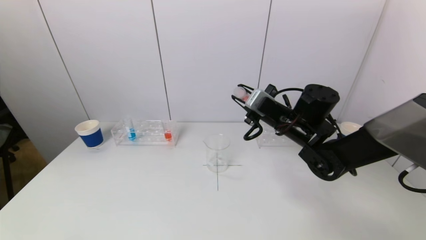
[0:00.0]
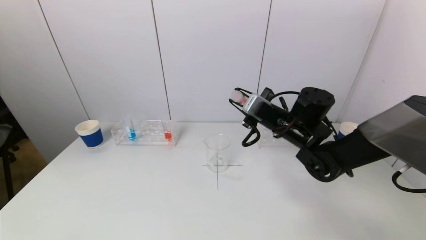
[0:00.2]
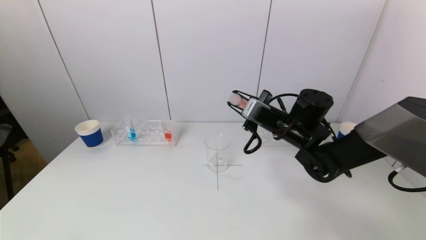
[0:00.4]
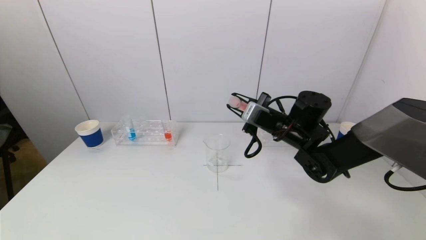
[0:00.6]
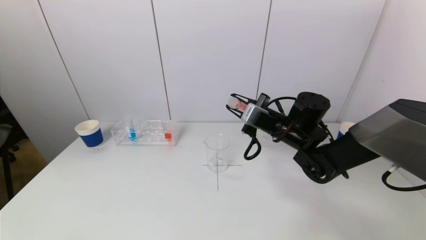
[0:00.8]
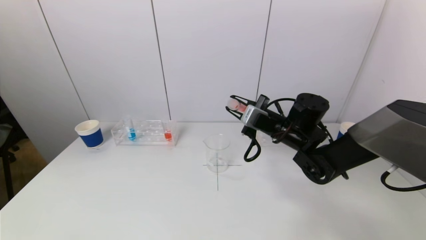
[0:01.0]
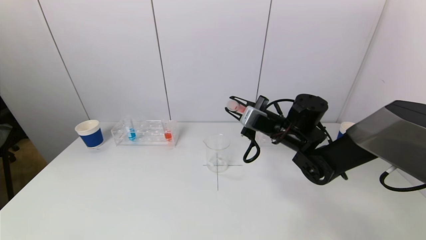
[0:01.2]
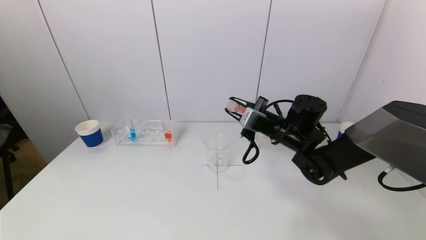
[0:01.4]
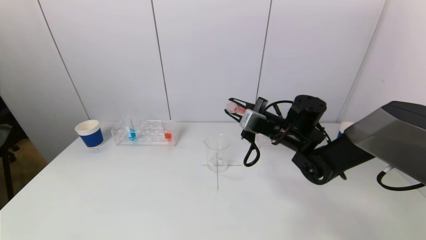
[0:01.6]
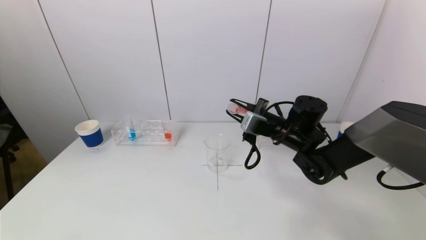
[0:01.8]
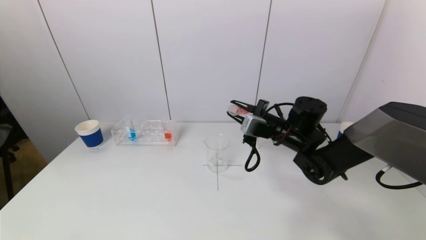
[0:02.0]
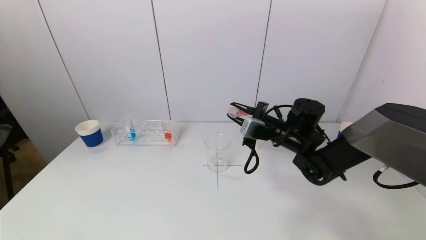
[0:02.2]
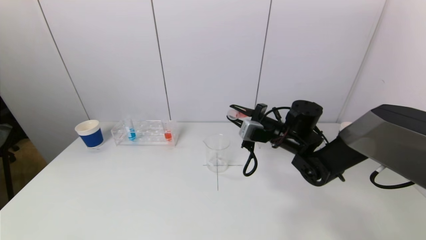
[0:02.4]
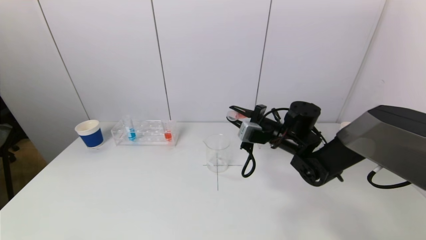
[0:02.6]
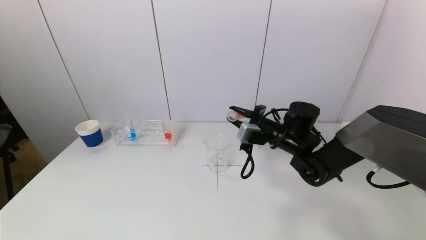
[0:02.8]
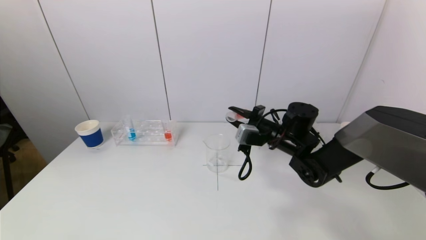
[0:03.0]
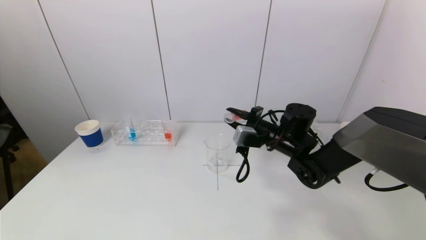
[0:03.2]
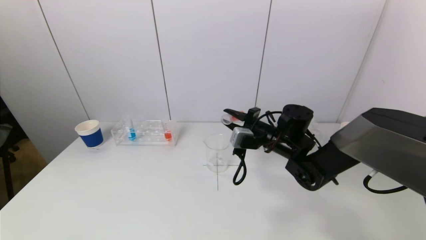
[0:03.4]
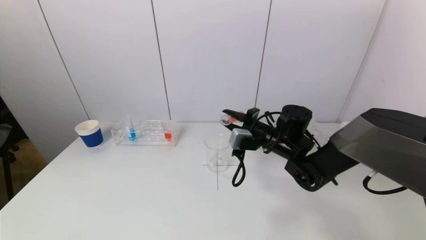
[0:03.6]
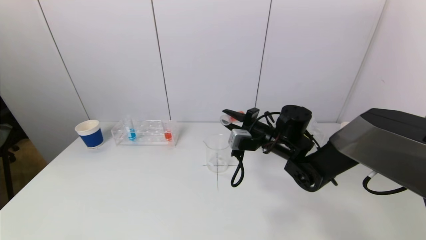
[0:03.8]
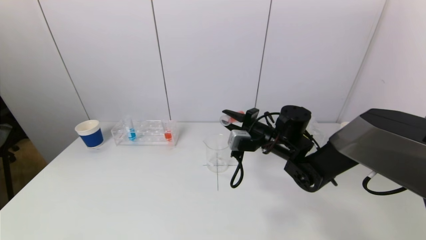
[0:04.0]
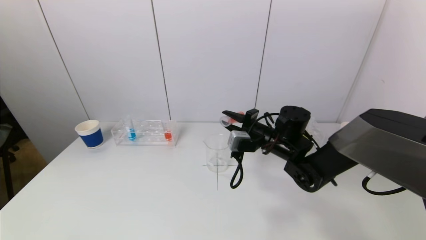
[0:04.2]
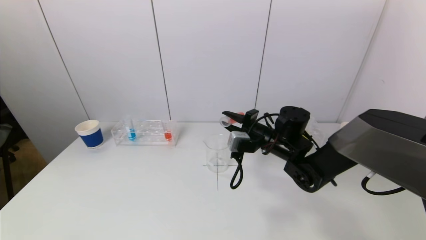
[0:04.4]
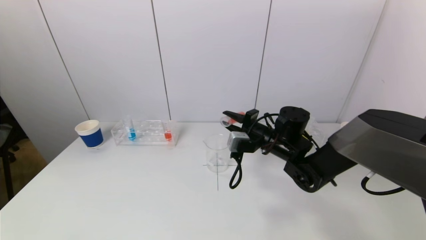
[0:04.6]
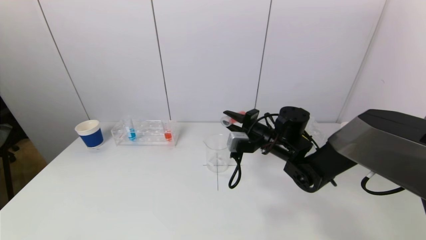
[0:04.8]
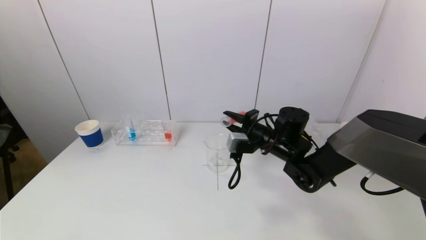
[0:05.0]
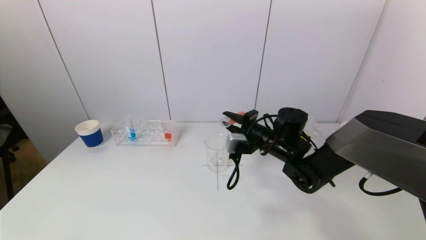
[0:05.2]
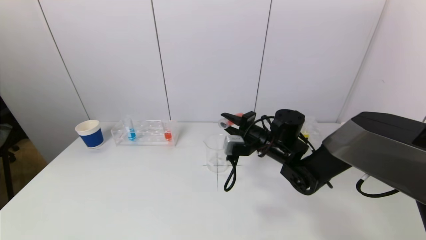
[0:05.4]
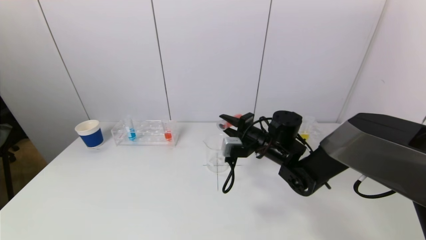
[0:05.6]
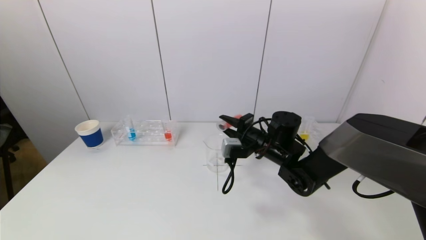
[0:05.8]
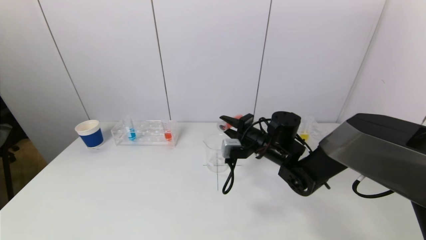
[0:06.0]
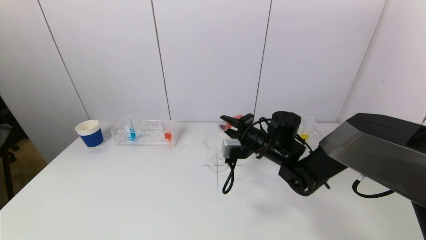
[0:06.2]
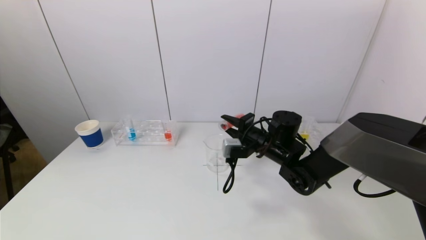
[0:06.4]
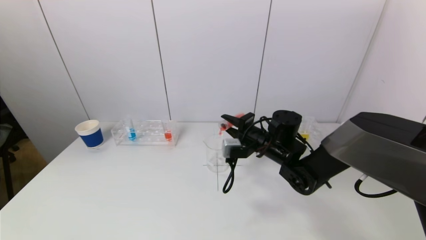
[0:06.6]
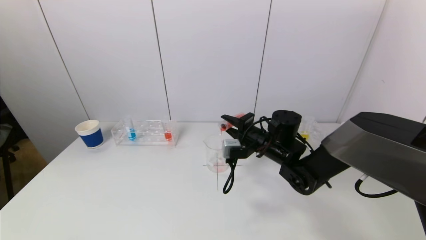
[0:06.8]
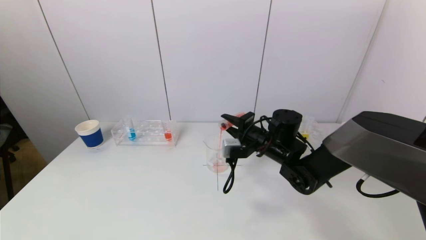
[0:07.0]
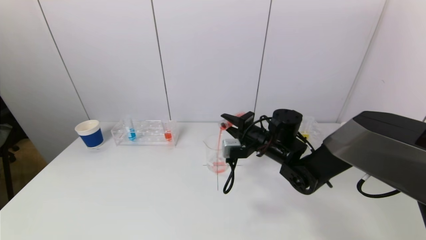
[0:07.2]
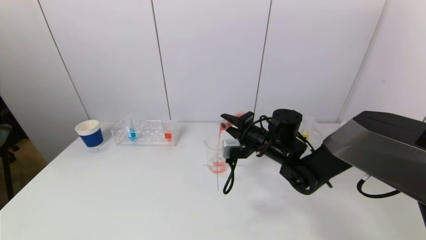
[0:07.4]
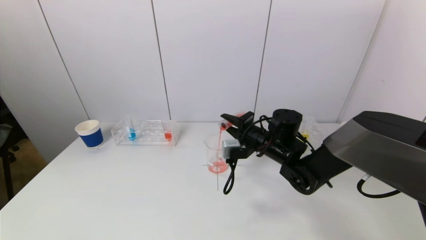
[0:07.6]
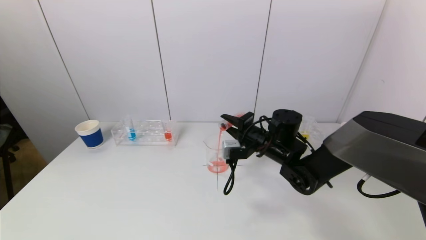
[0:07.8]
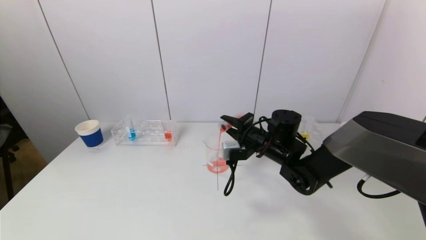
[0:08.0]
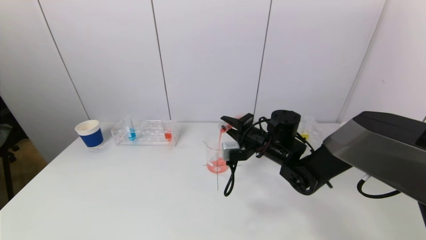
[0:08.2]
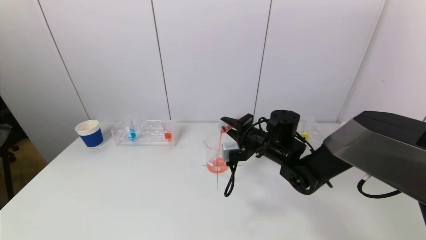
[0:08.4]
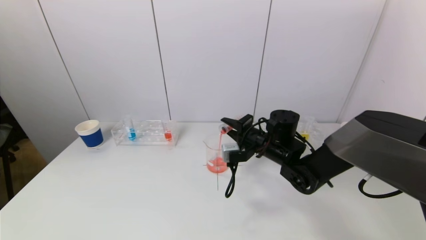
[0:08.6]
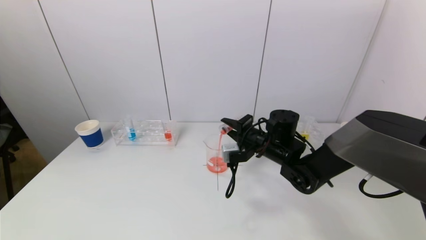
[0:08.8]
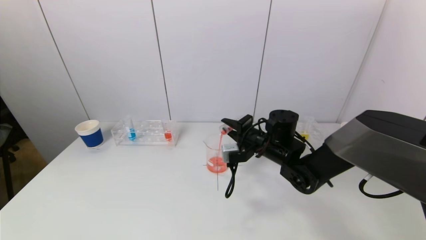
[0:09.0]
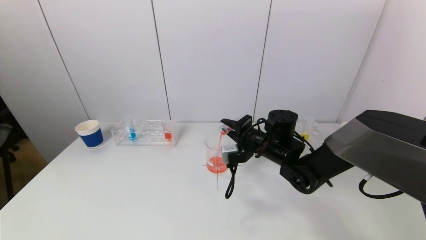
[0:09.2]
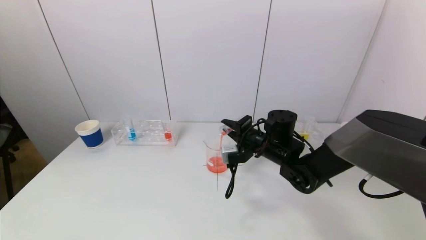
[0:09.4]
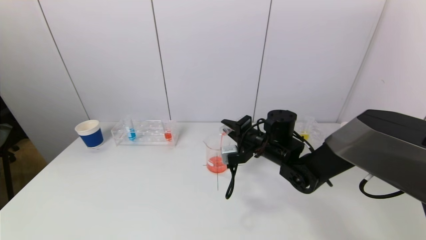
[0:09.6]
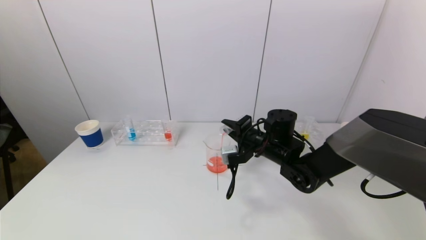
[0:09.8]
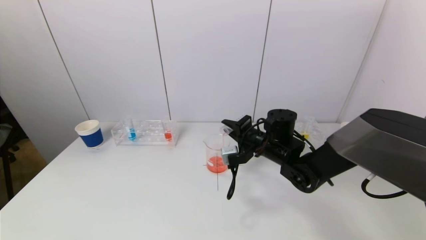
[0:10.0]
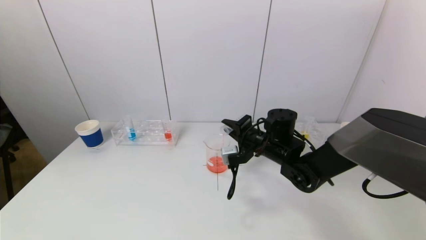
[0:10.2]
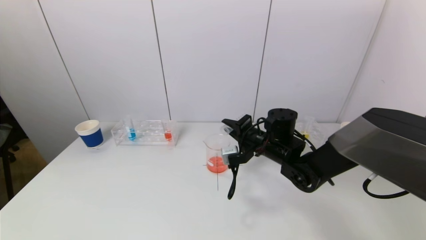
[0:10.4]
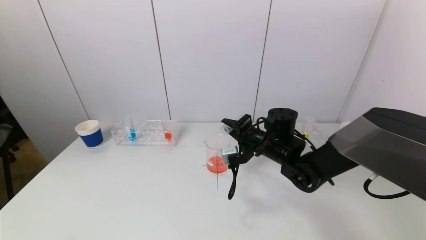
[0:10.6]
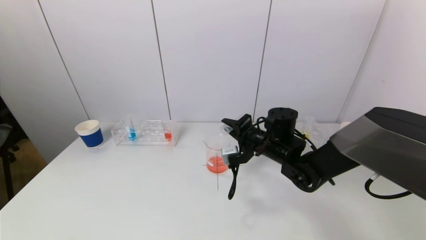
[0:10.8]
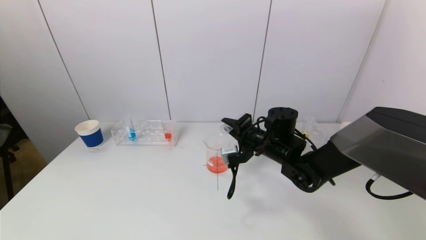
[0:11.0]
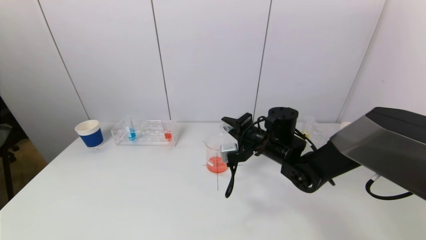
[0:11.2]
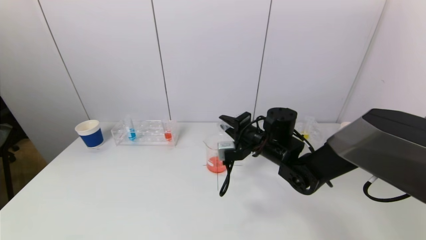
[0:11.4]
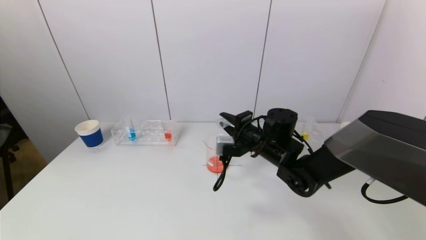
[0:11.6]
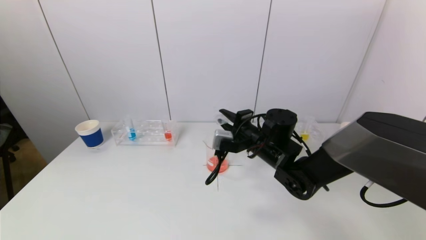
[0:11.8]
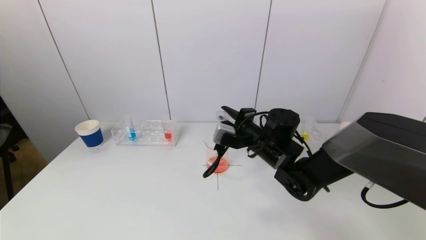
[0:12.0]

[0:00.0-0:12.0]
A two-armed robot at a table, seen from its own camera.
Task of the whole recording: pick up a test tube with pigment on left test tube rack and a test tube with pigment on right test tube rack by grippers and pour them into the beaker.
Step, 0:00.0 to 0:10.6: Pour the red reagent into the graduated cylinder with the right gripper.
0:00.0 to 0:01.6: There are only small adjustments of the grippers.
0:01.6 to 0:04.4: The grippers move only a little.
0:04.4 to 0:09.0: The grippers stay close to where they were, moving slightly.
0:09.0 to 0:10.4: The grippers move only a little.

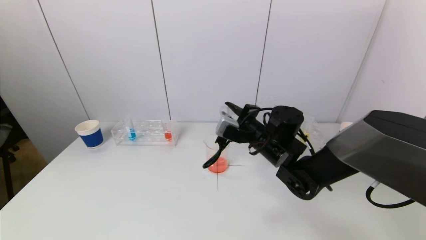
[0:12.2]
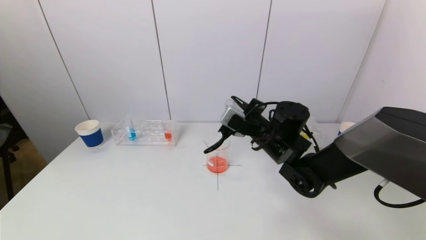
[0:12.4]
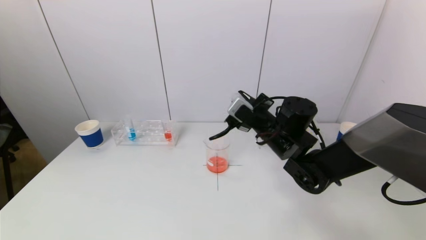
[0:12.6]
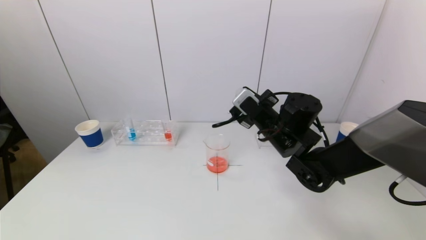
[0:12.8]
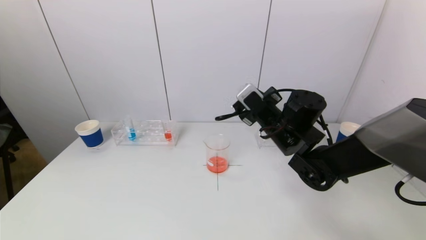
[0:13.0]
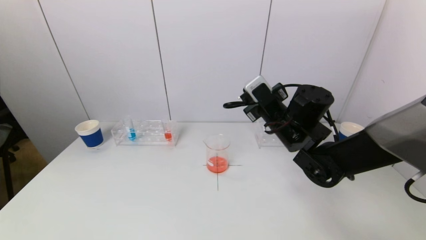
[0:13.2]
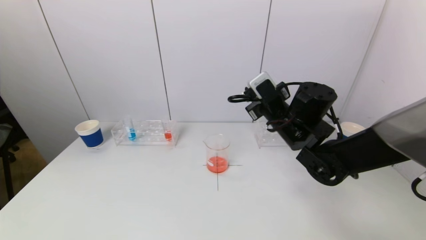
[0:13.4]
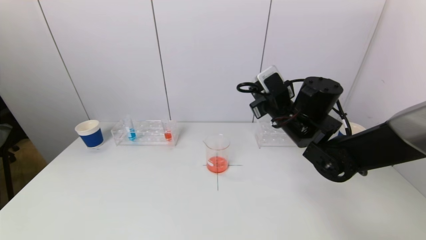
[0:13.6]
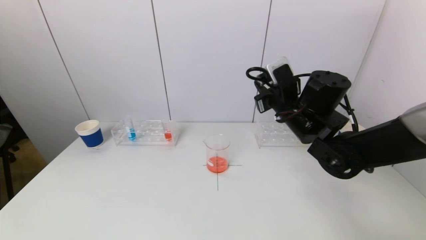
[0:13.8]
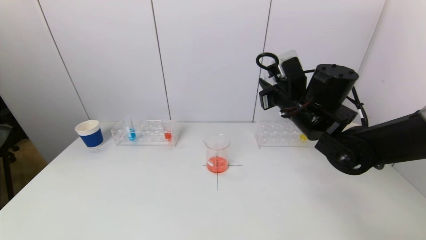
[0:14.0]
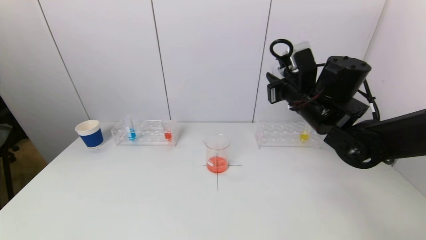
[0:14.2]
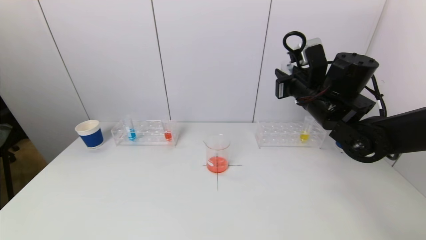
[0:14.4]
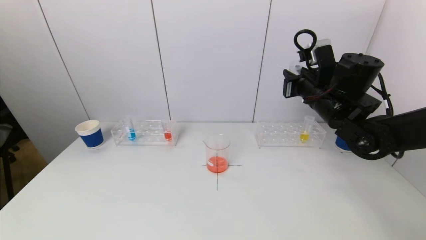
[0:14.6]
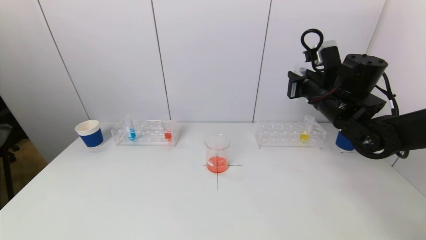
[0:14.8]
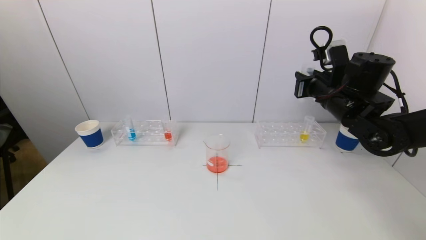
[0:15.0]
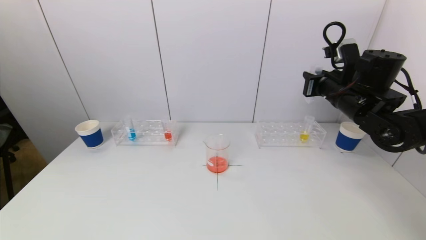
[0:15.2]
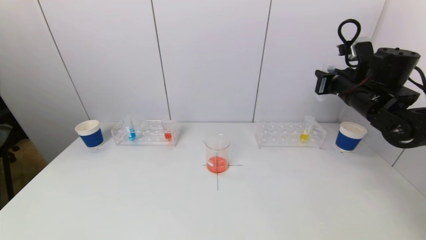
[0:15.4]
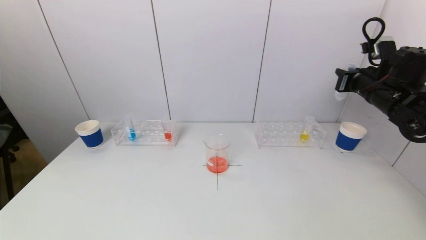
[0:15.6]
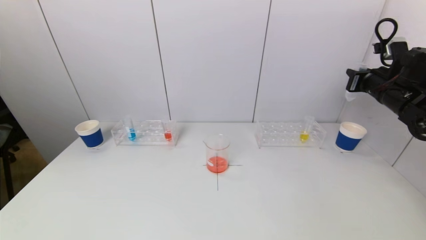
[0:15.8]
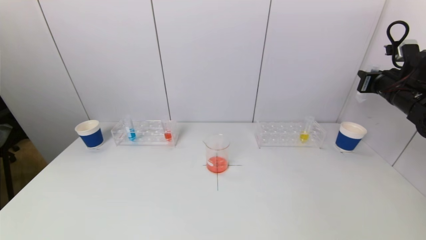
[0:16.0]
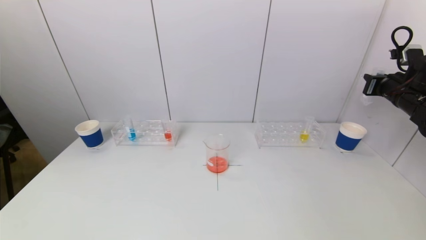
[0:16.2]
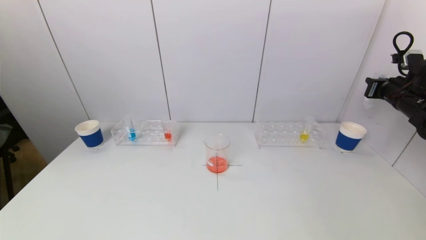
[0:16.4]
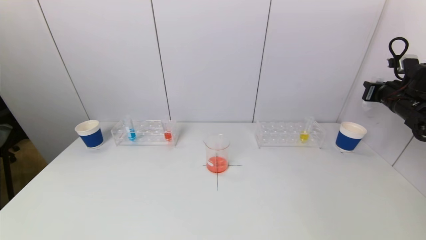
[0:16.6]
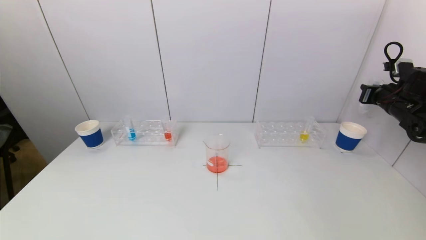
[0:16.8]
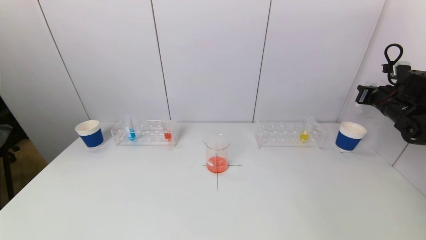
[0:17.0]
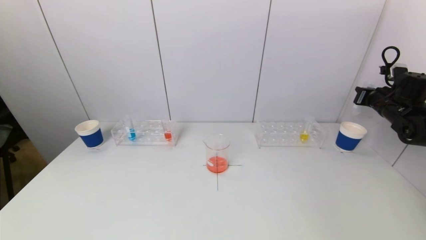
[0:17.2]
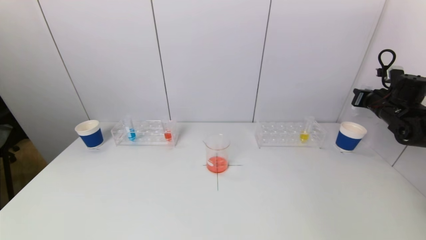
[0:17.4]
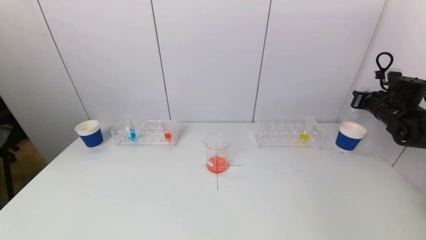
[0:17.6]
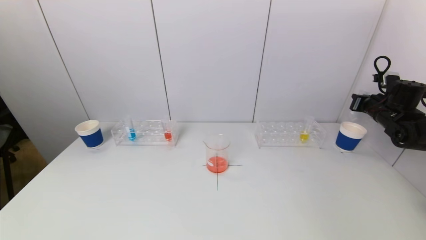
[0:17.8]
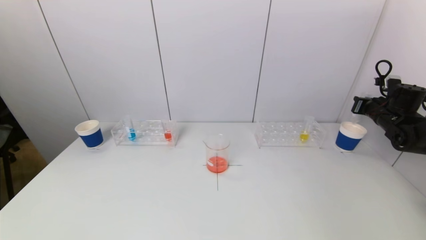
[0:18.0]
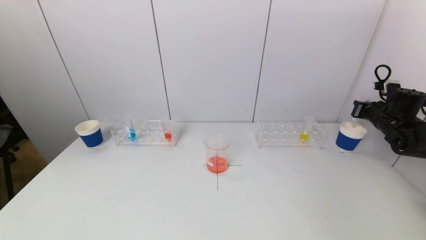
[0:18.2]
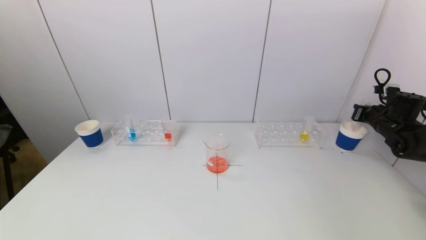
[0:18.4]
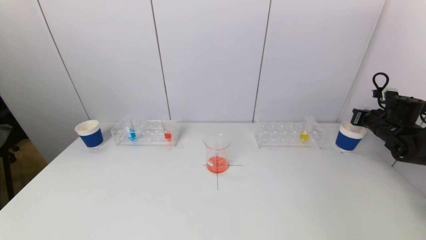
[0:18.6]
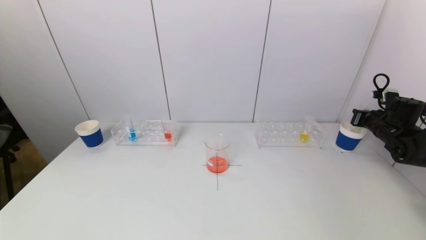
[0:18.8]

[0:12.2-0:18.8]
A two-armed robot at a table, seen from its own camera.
Task of the whole recording: pick up a test tube with pigment on left test tube rack and a test tube with pigment on right test tube rack by grippers and pour them into the beaker.
0:12.2 to 0:13.8: The right gripper travels upward and to the right by about 10 cm.
0:13.8 to 0:15.4: The right gripper moves to the right, about 15 cm.
0:15.4 to 0:17.2: The right gripper travels to the right and downward by approximately 15 cm.
0:17.2 to 0:18.8: The right gripper is displaced downward by some 5 cm.
